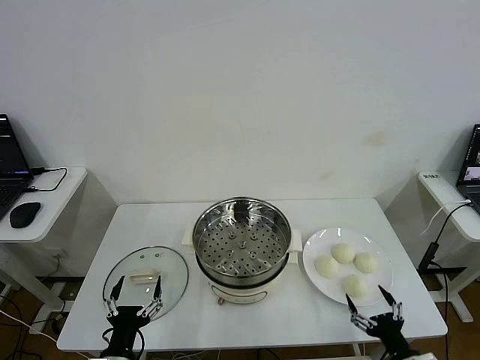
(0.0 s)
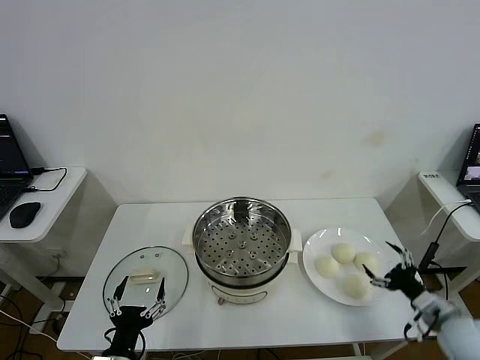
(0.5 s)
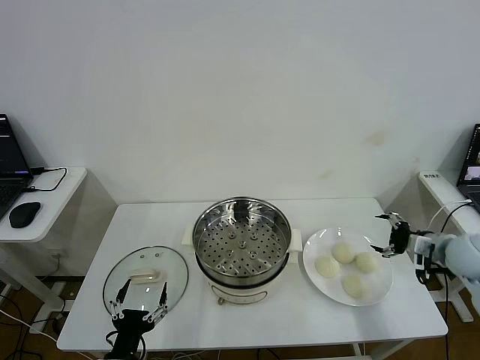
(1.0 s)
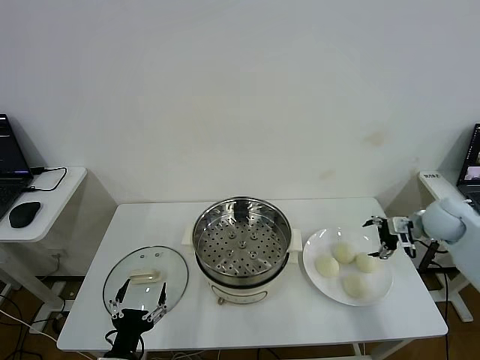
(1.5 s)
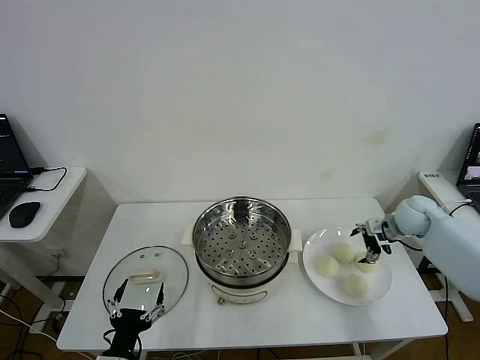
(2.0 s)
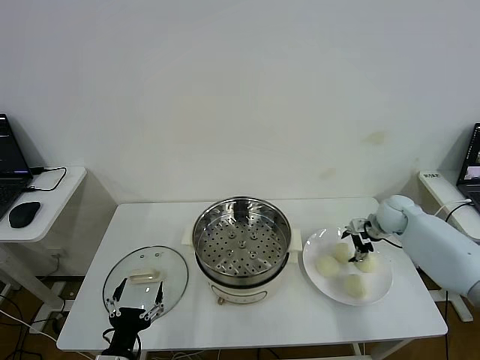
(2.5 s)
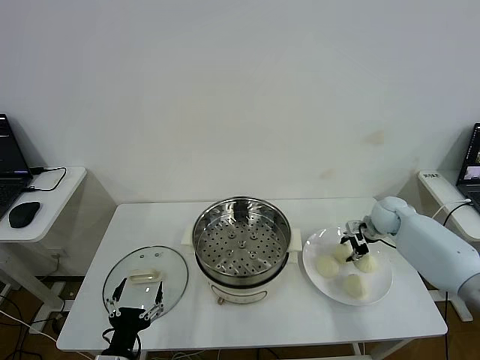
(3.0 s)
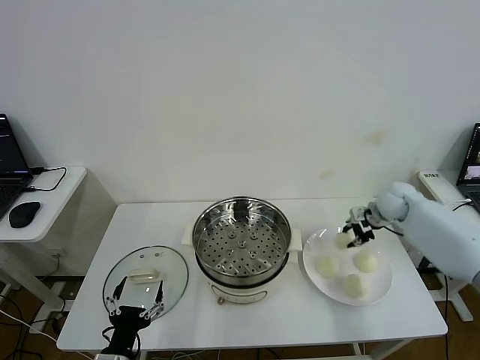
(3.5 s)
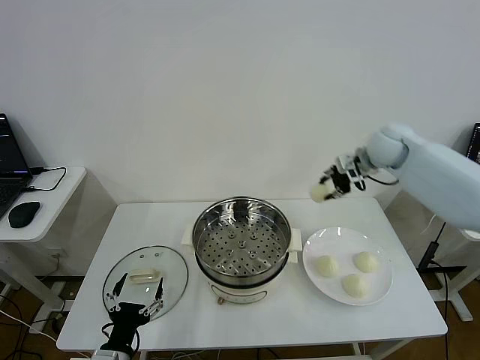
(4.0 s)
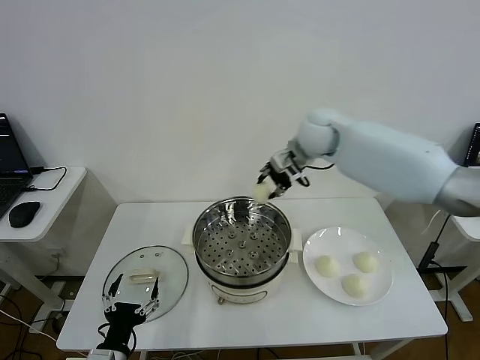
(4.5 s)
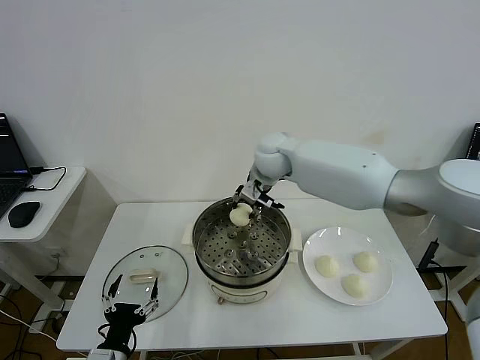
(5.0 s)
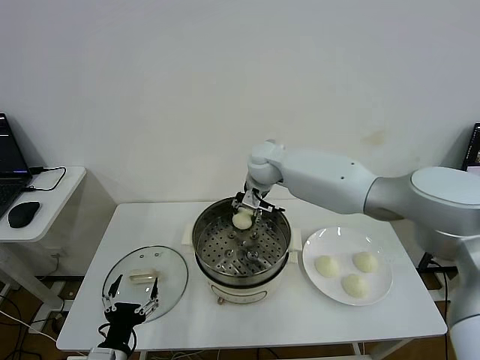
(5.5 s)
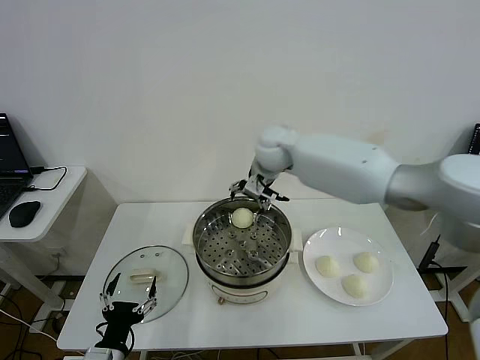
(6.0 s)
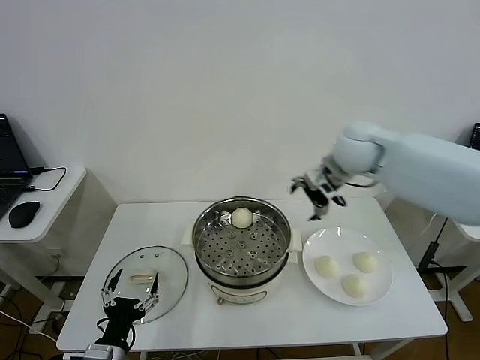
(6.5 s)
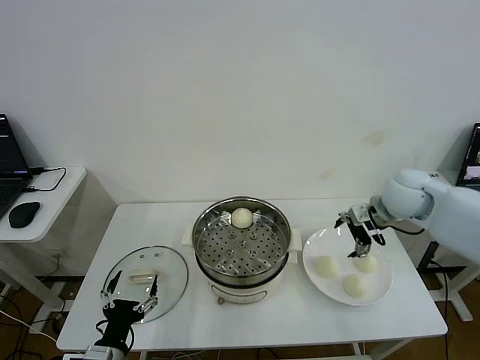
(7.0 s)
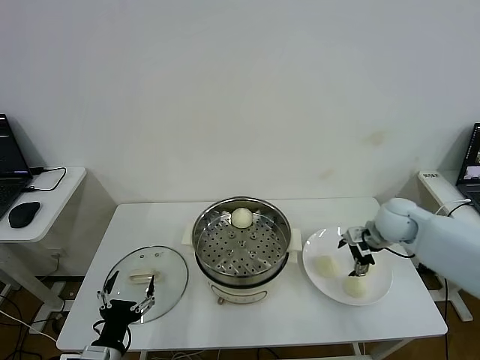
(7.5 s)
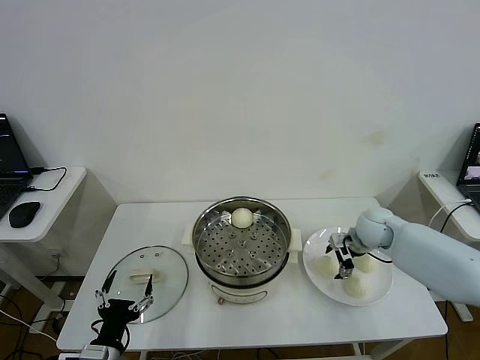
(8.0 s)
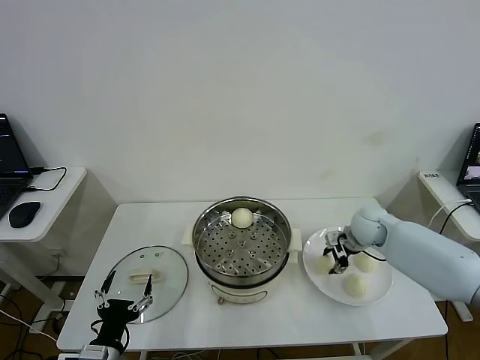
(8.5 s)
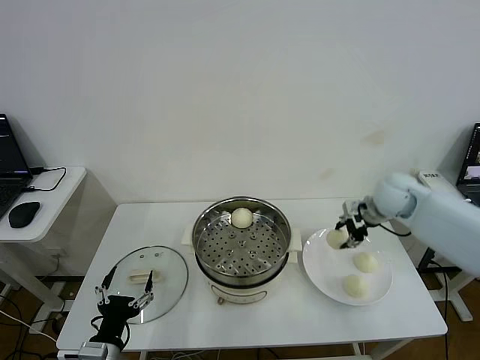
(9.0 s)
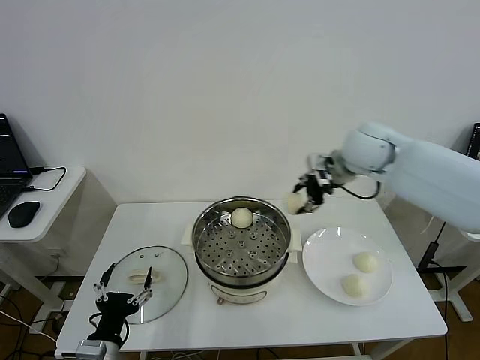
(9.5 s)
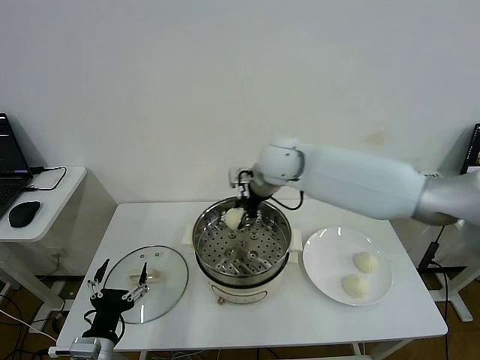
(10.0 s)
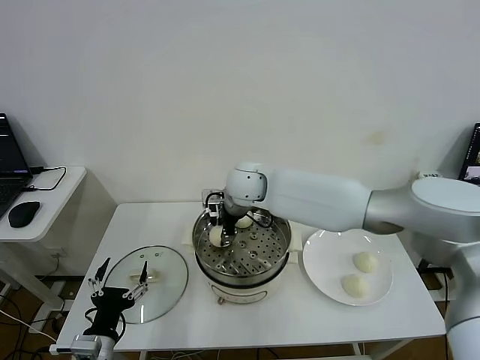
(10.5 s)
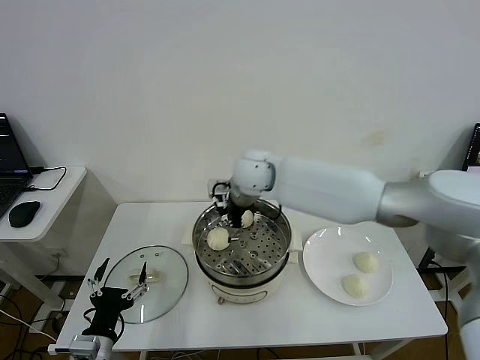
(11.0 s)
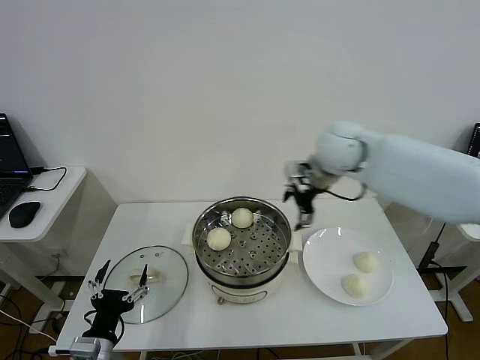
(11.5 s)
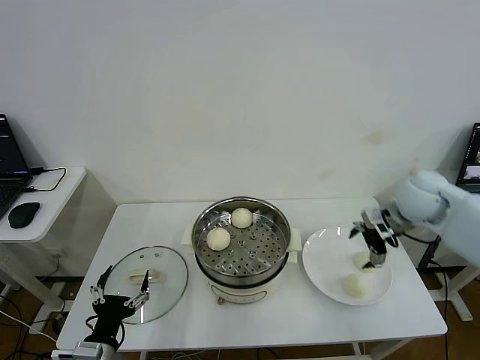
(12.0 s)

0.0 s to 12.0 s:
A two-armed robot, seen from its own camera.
Step, 0.0 to 3.0 s: Grasp the baozi in the plate with right gripper.
Step, 3.5 to 5.5 s: Place the baozi on the steamer with right gripper.
Step, 6.0 to 8.0 s: Grasp the baozi in the plate with right gripper.
Step, 8.5 to 10.5 s: Place the baozi on the steamer with right gripper.
2.0 to 4.0 s: The right gripper goes some 25 cm upward and to the left, and closes its fingers.
4.0 to 6.0 s: The right gripper moves to the left, roughly 20 cm, and opens.
6.0 to 8.0 s: The right gripper shifts some 30 cm to the right and downward.
8.0 to 10.0 s: The right gripper heads to the left and upward, covering approximately 30 cm, and closes up.
10.0 to 12.0 s: The right gripper shifts some 30 cm to the right, and opens up.

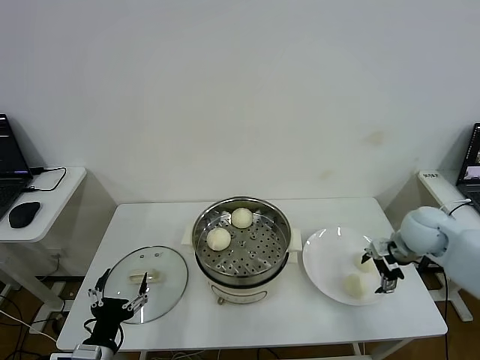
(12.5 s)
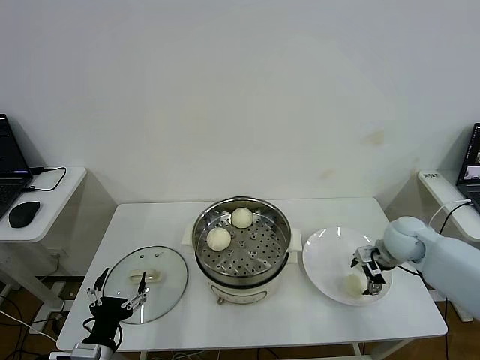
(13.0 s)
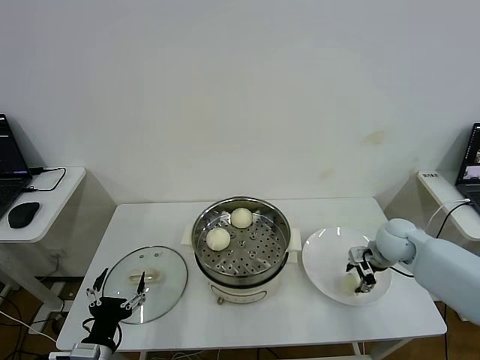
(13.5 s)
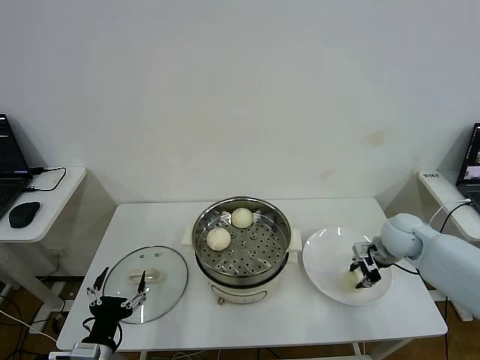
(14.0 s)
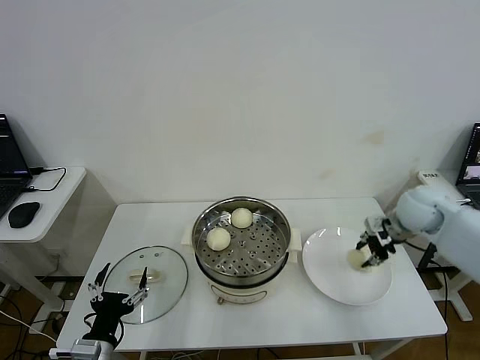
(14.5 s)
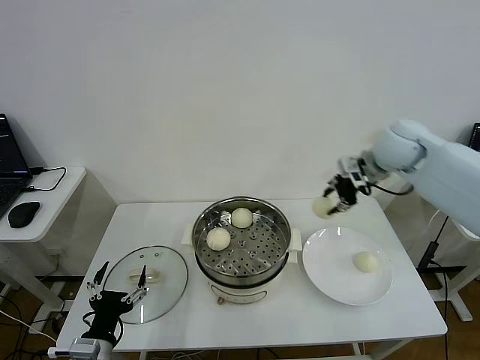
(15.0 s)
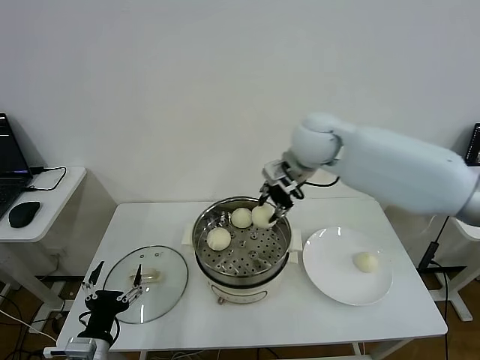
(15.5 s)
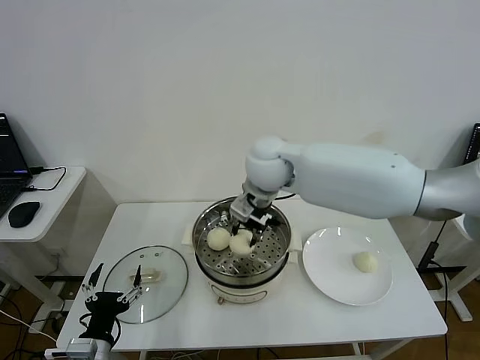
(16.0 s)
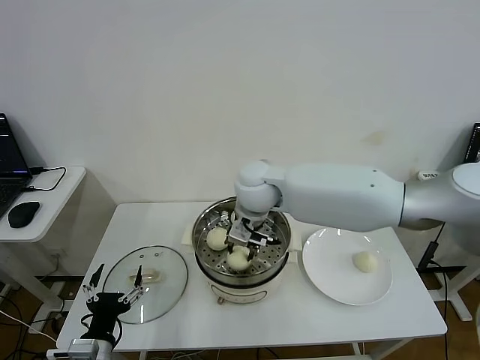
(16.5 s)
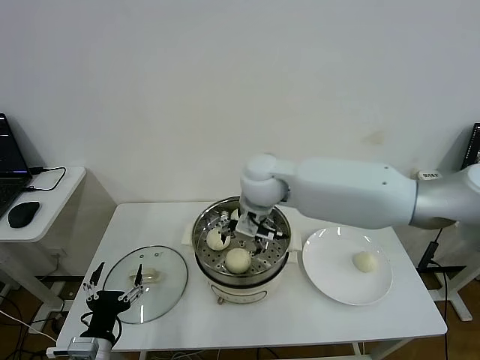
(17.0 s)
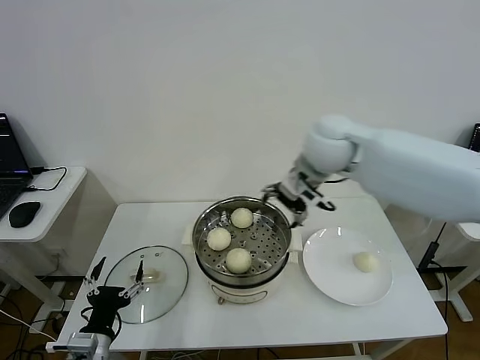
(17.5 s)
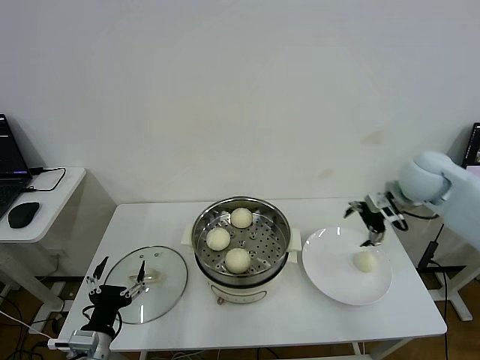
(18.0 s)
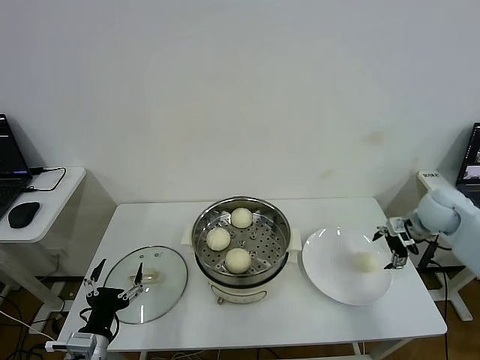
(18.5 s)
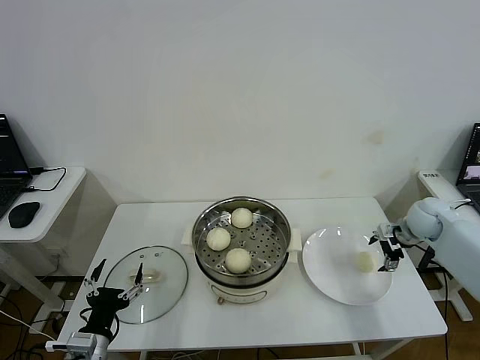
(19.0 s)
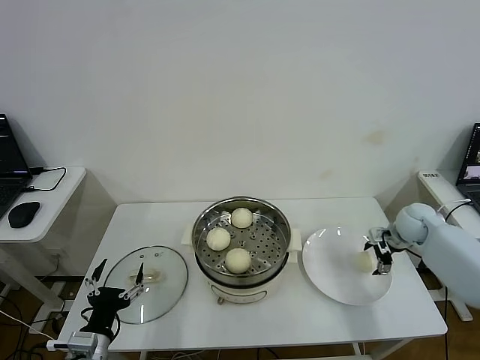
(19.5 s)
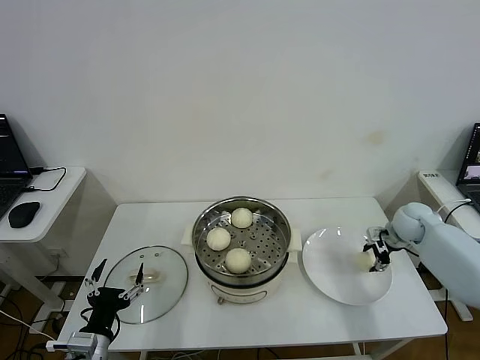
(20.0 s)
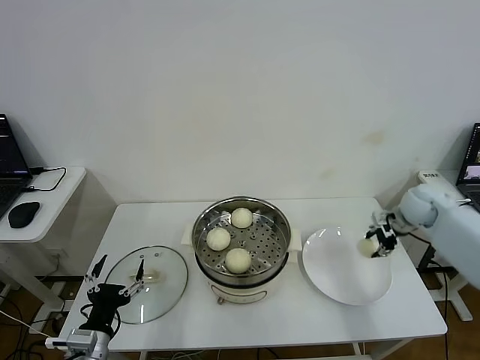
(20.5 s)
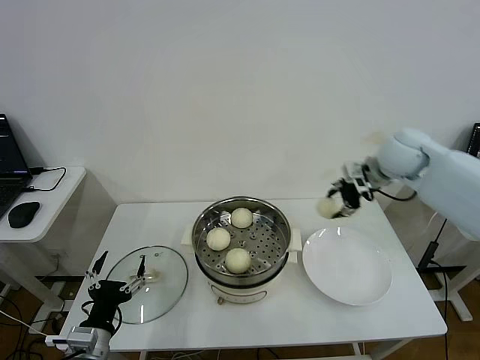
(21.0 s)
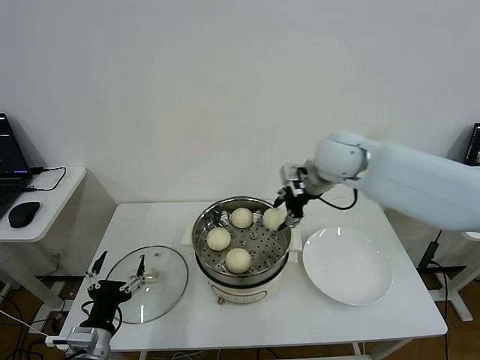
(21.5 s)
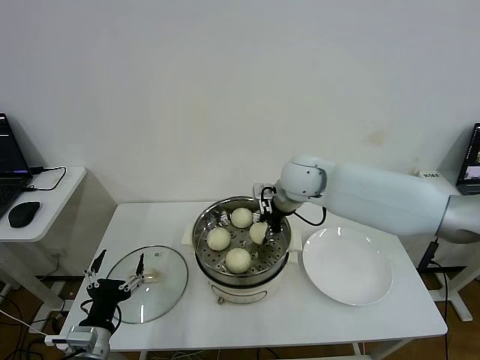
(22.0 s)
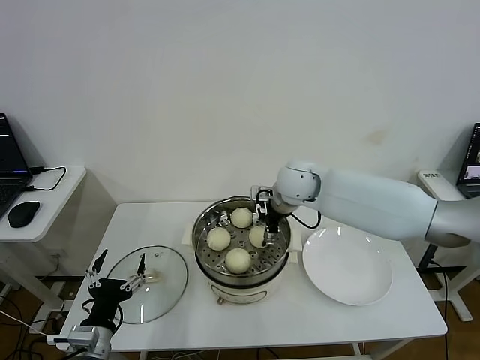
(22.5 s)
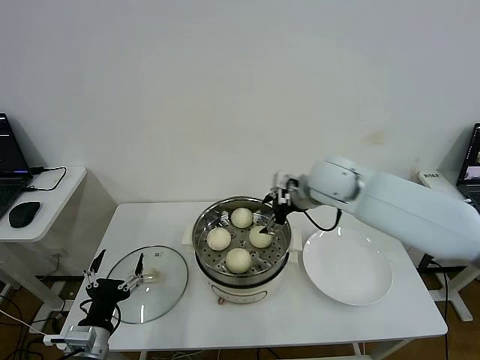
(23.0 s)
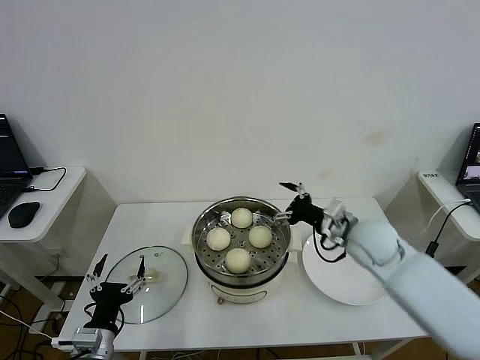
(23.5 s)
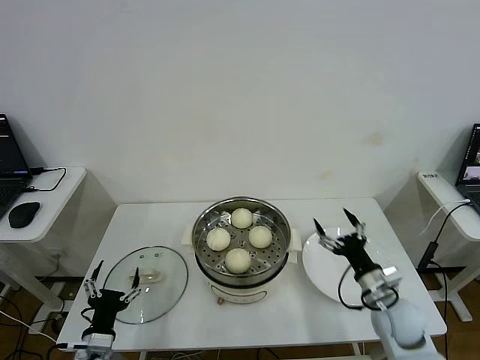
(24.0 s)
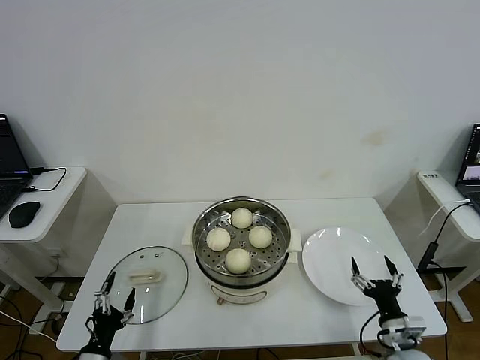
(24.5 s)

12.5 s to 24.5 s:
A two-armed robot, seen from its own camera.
Step, 14.0 to 16.5 s: Place the baozi on the steamer with right gripper.
Step, 17.0 to 20.0 s: Grasp the baozi in the plate with right gripper.
Step, 20.5 to 22.0 s: Place the baozi on the steamer with right gripper.
12.5 to 14.5 s: The right gripper goes about 5 cm upward, and closes.
14.5 to 16.5 s: The right gripper heads to the left, covering about 35 cm.
16.5 to 18.5 s: The right gripper travels to the right by about 40 cm, and opens its fingers.
18.5 to 20.5 s: The right gripper reaches some 10 cm downward, then returns, and closes up.
20.5 to 22.5 s: The right gripper shifts about 30 cm to the left, and opens its fingers.
22.5 to 24.5 s: The right gripper moves backward, downward and to the right, roughly 50 cm, while the left gripper shifts about 10 cm downward.

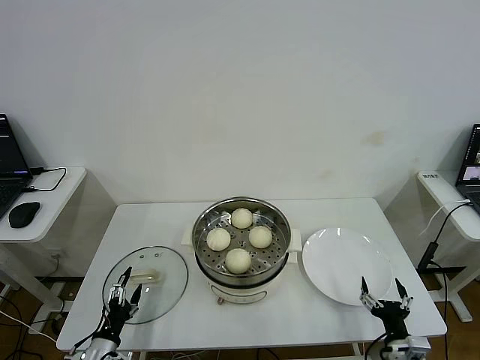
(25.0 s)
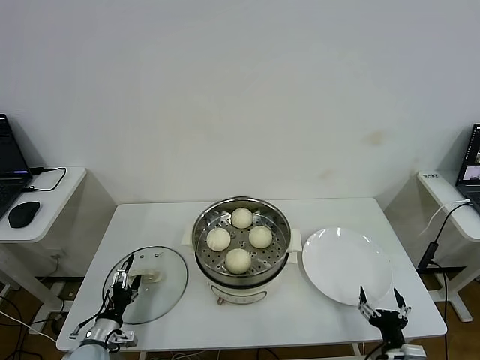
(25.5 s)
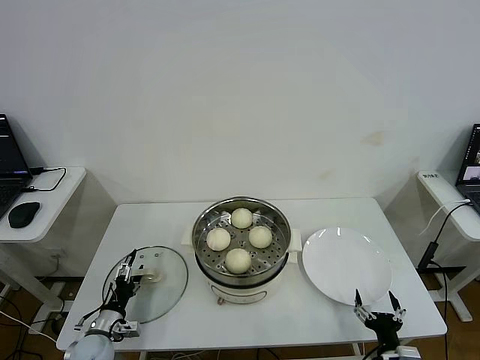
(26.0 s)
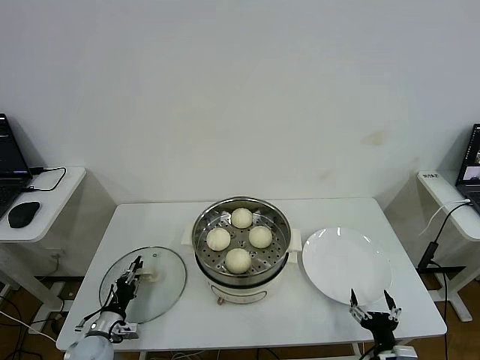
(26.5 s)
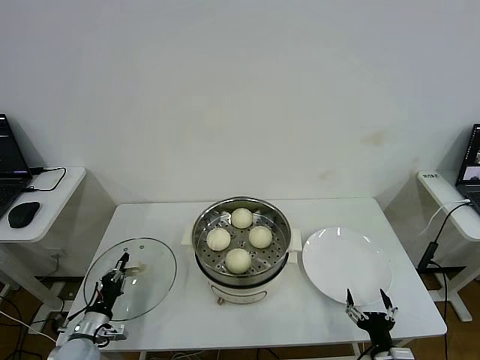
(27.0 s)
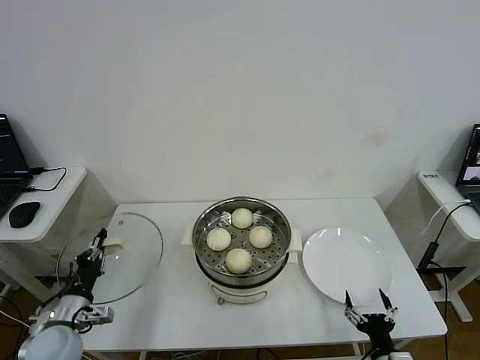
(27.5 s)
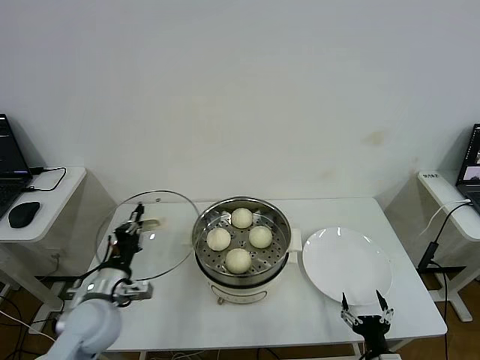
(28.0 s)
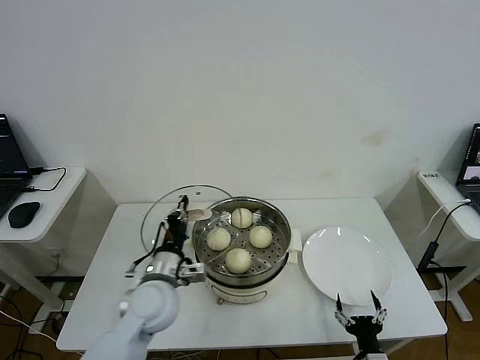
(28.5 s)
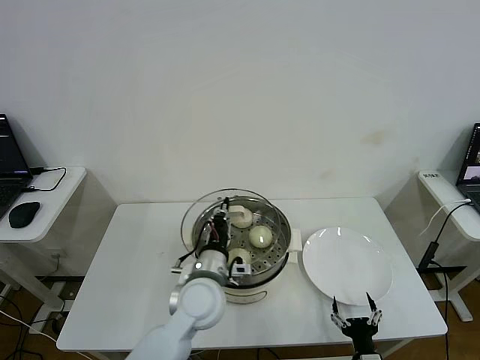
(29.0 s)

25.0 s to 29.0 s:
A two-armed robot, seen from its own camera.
25.0 to 27.0 s: The left gripper is displaced forward by approximately 5 cm, and closes.
27.0 to 29.0 s: The left gripper is displaced to the right and upward by some 35 cm.
